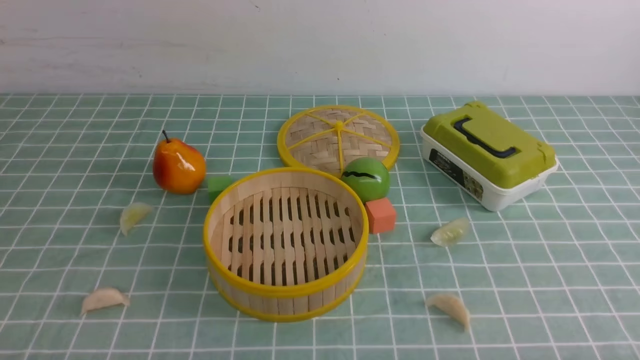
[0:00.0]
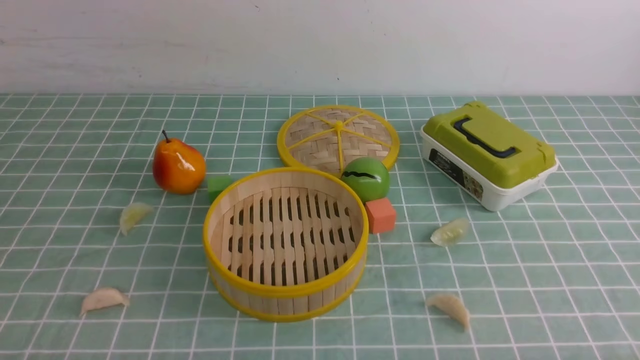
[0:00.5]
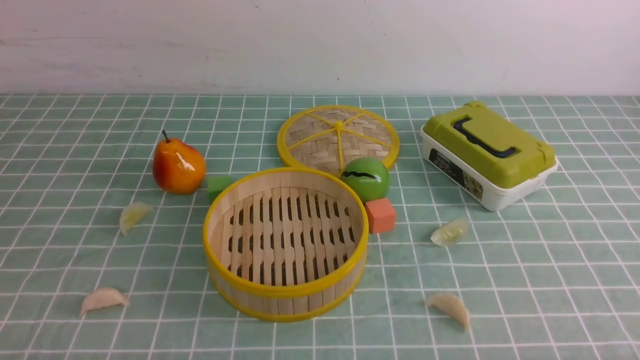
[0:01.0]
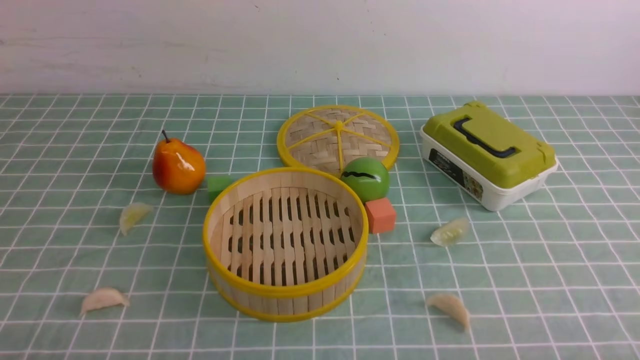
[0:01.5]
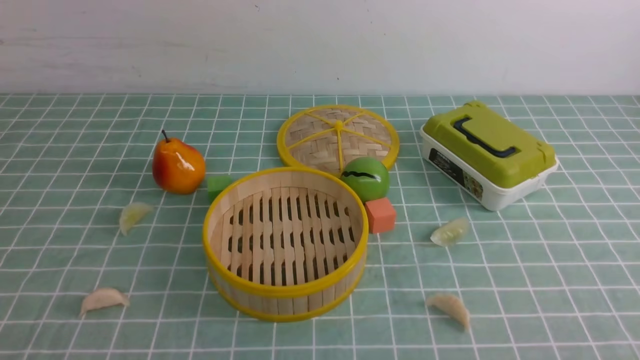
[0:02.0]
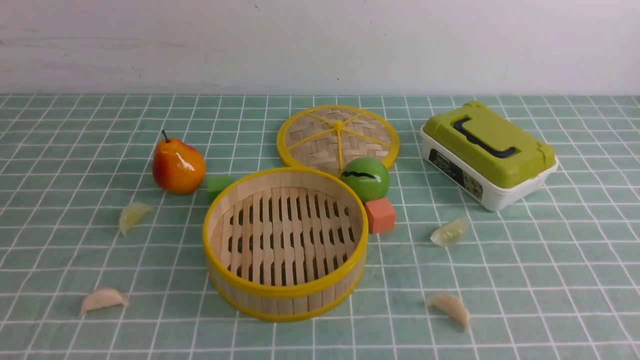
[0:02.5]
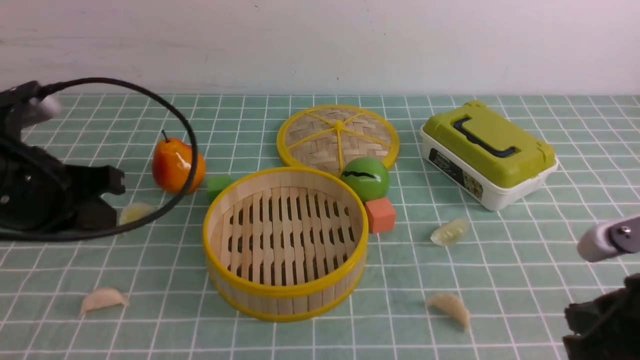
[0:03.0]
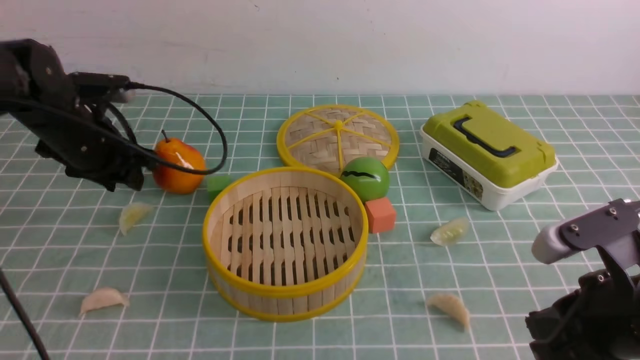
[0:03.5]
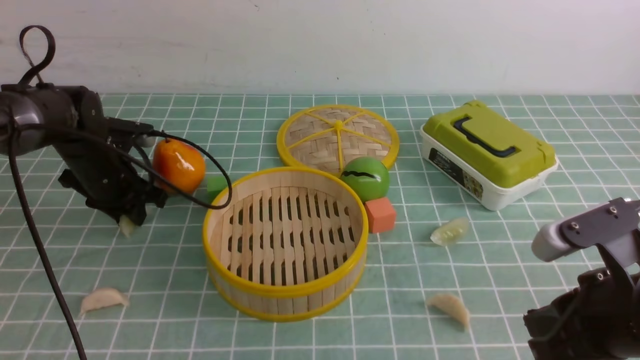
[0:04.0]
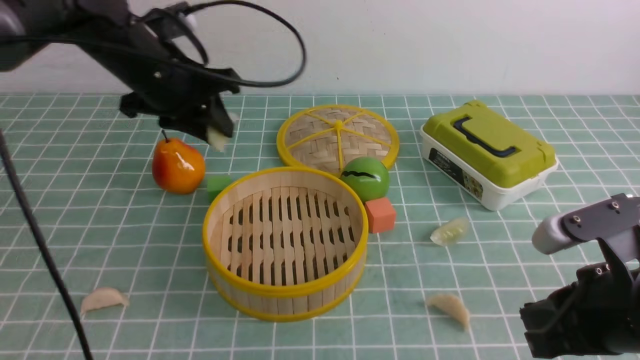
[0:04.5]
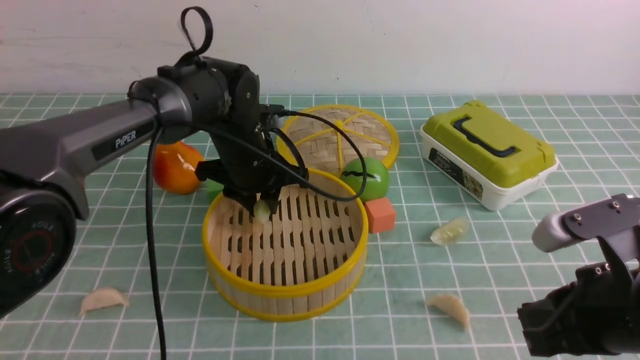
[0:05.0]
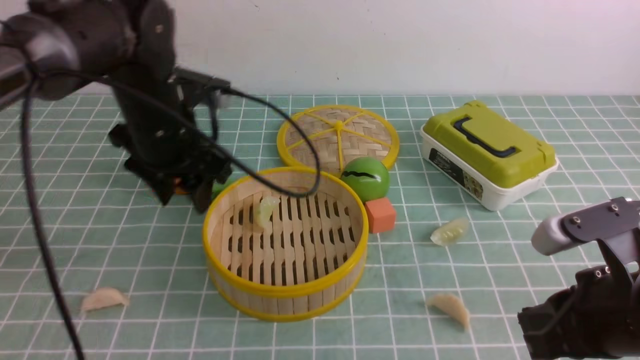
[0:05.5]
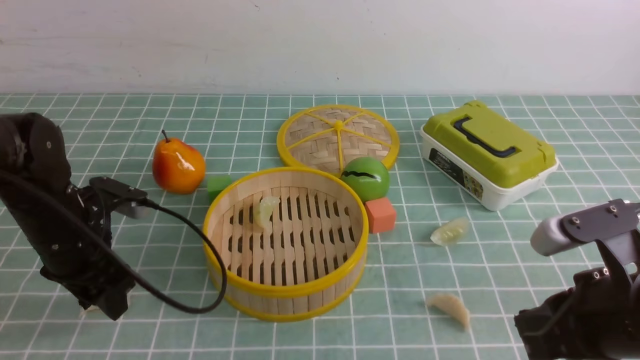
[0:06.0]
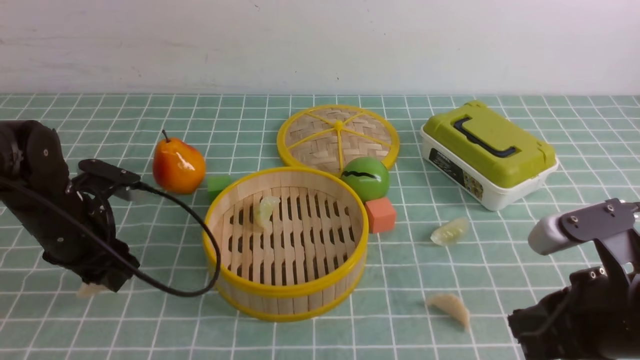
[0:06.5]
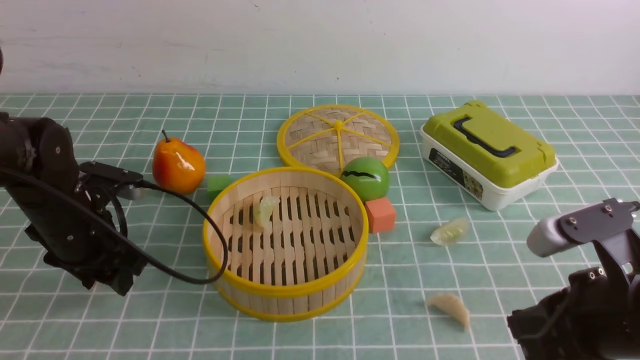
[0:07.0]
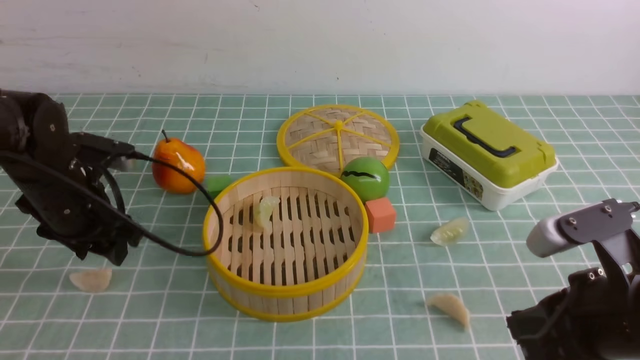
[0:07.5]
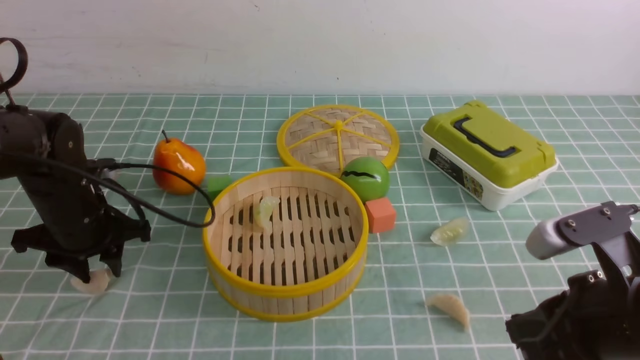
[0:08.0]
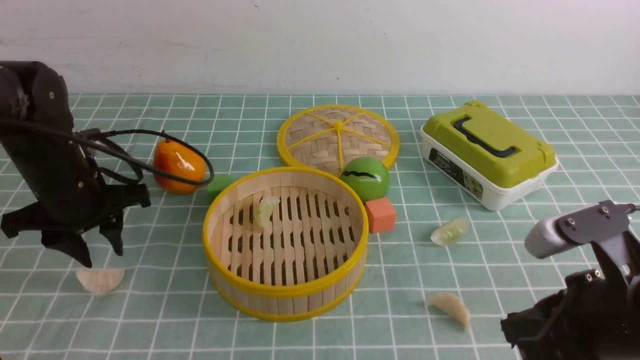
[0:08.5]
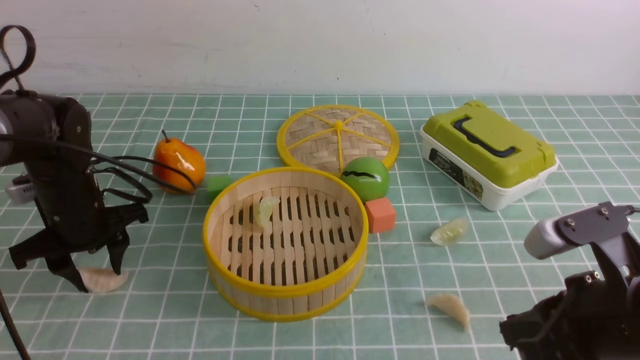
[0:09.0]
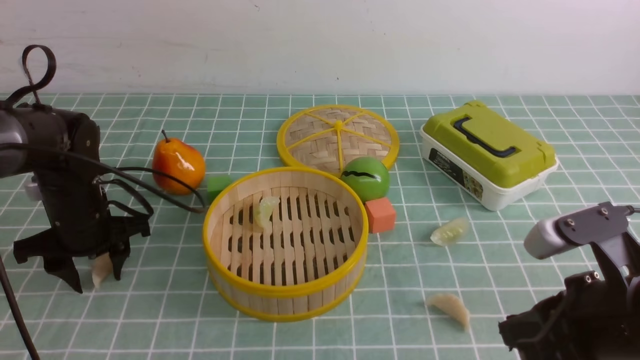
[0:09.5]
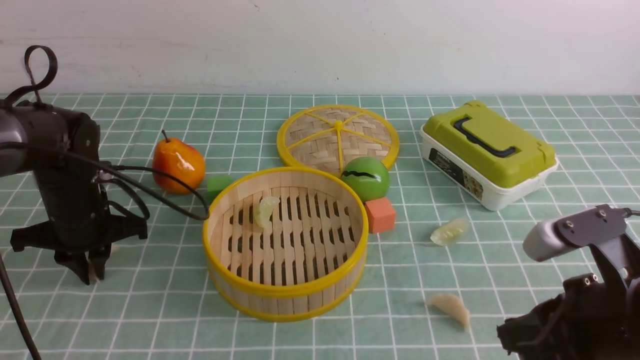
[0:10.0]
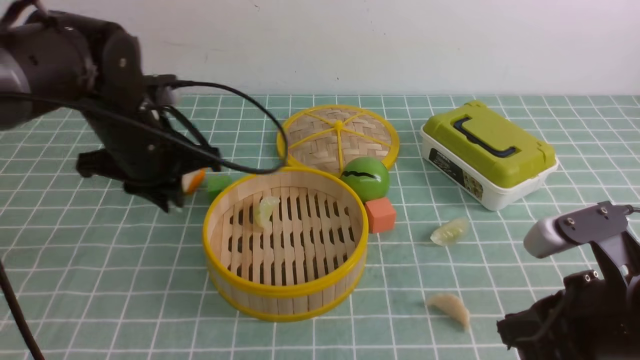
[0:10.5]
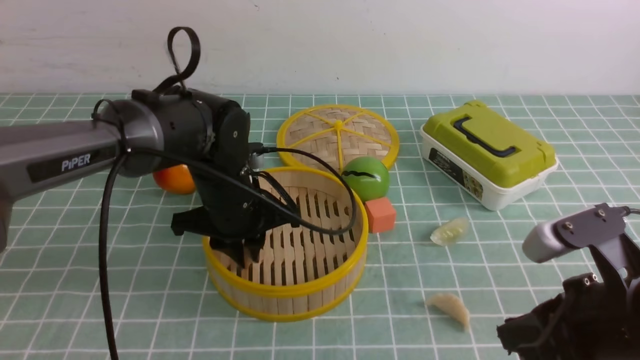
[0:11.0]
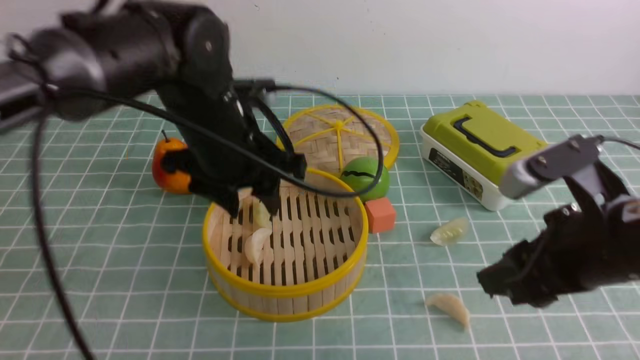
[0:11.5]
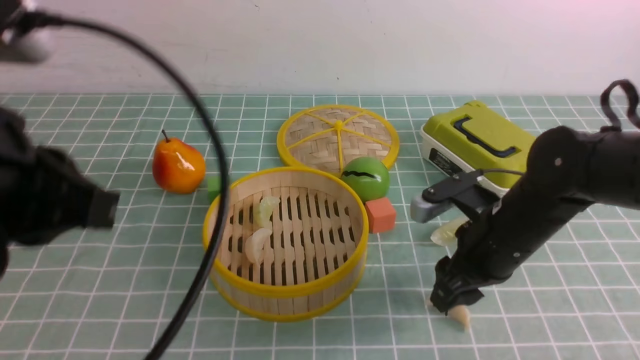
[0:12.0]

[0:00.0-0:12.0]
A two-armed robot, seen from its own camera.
Task of the whole recording: put the dumplings into the steamer on the table with the blue tablecloth.
Step, 0.0 to 4.0 s: use the left arm to grab a dumpling.
Step, 4.5 to 5.5 s: use the left arm to put the dumpling into the steamer.
Step, 6.0 to 10.5 s: use the left arm to grab a dumpling.
Step, 11.0 to 11.5 s: use the left arm to put the dumpling into the steamer.
2.0 to 4.0 s: The right gripper goes about 15 cm forward and to the left. The left gripper heads forward, covering about 40 cm, and opens up.
4.0 to 6.0 s: The left gripper goes roughly 10 cm backward, travels to the right and back again, about 20 cm each way, and opens its fingers.
8.0 to 10.0 s: The left gripper closes its fingers.
10.0 to 12.0 s: The right gripper travels forward by about 15 cm, and opens its fingers, while the left gripper heads backward and upward, covering approximately 30 cm, and opens, then closes again.

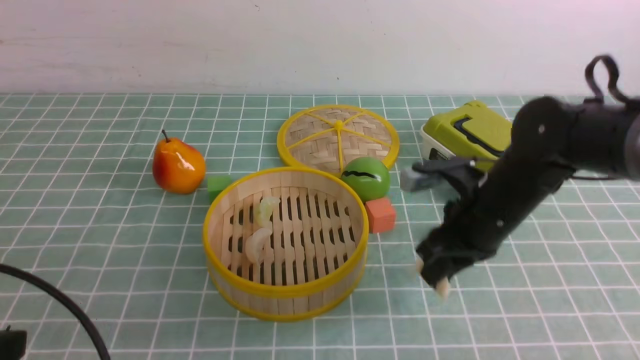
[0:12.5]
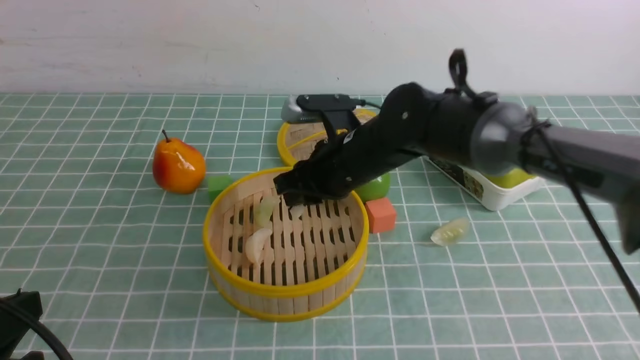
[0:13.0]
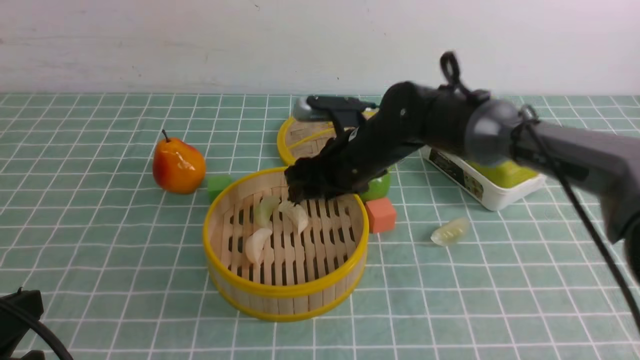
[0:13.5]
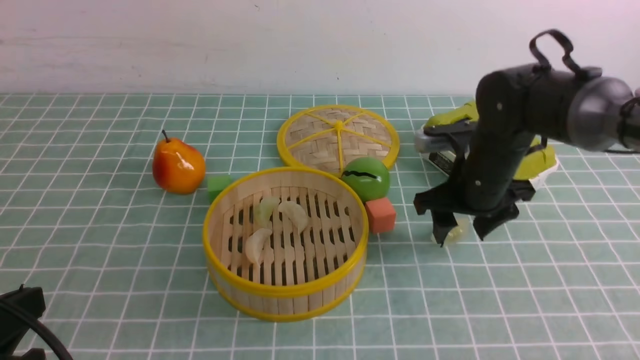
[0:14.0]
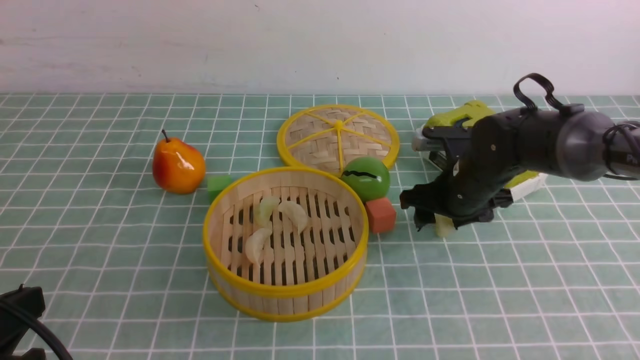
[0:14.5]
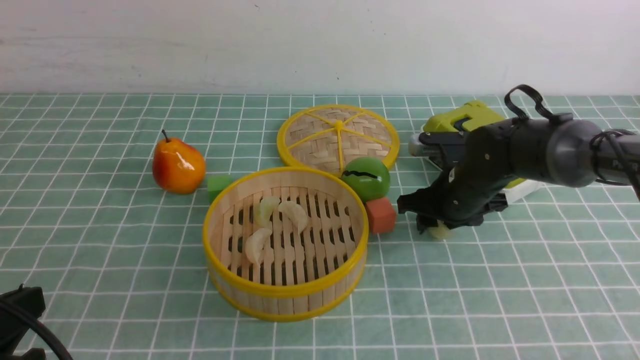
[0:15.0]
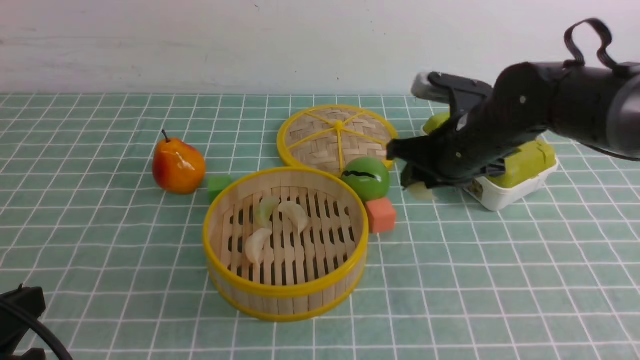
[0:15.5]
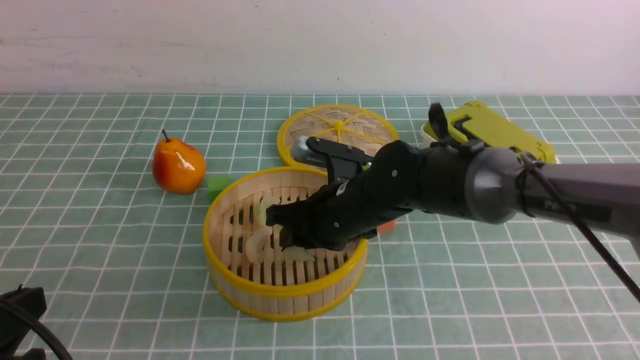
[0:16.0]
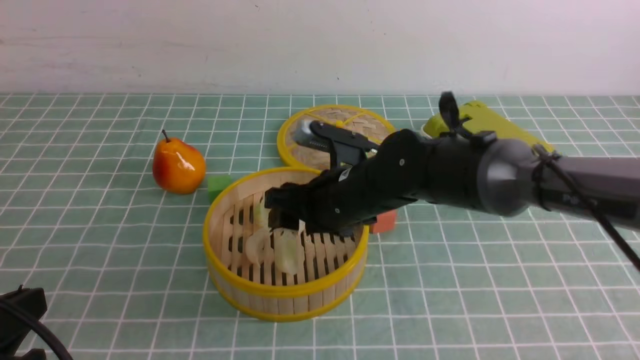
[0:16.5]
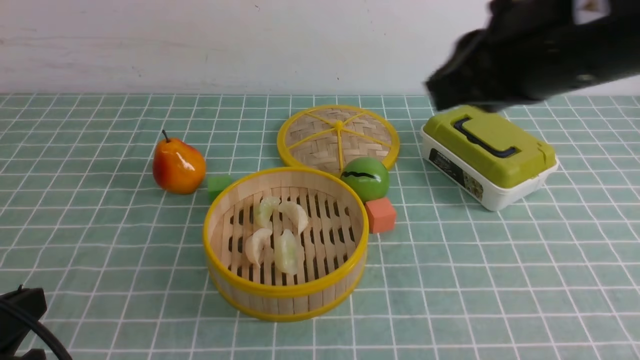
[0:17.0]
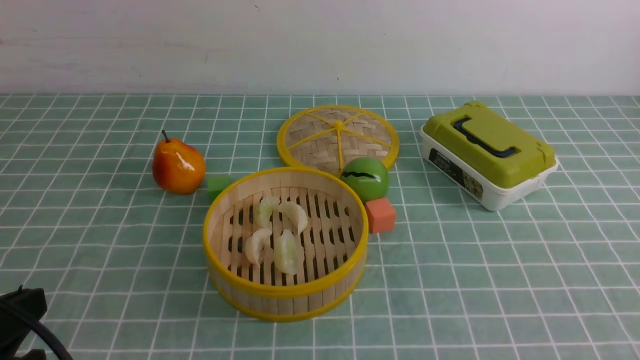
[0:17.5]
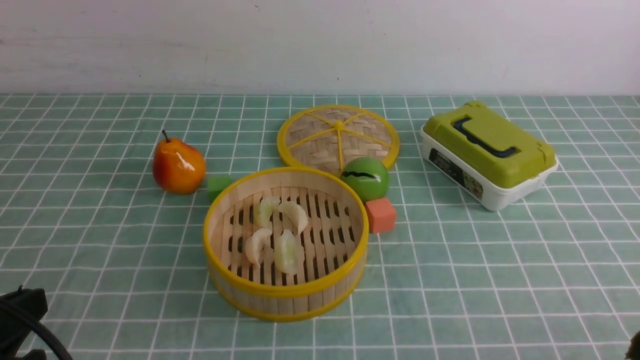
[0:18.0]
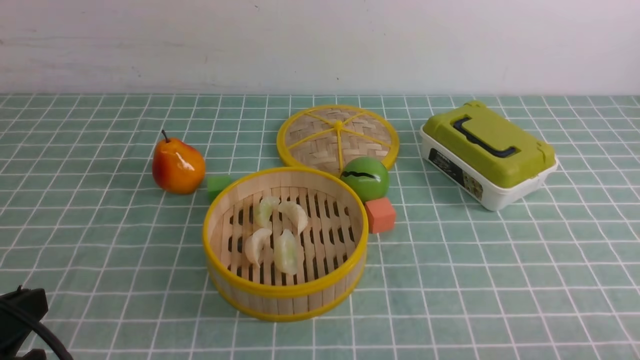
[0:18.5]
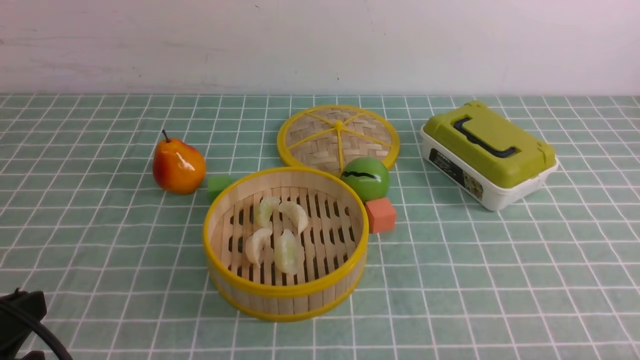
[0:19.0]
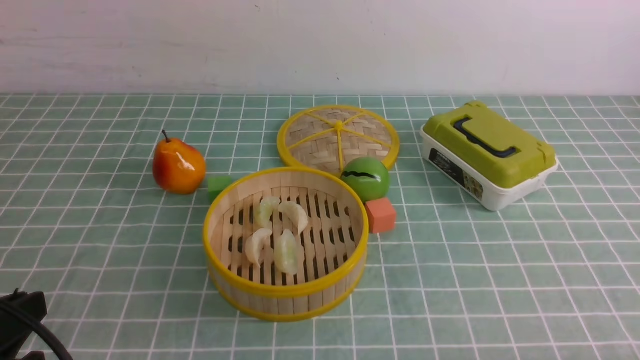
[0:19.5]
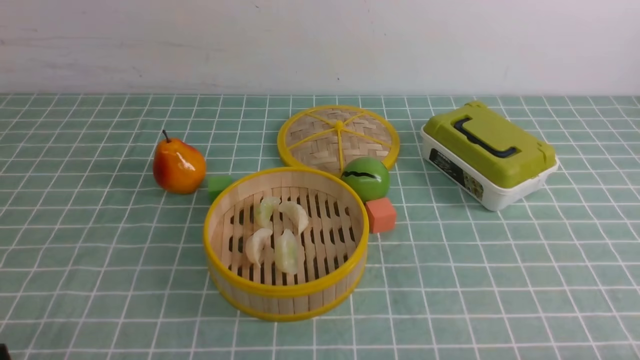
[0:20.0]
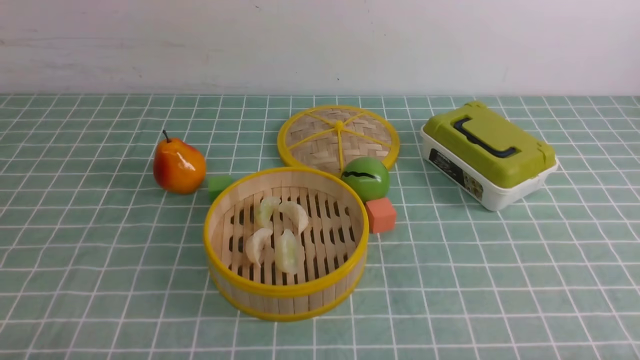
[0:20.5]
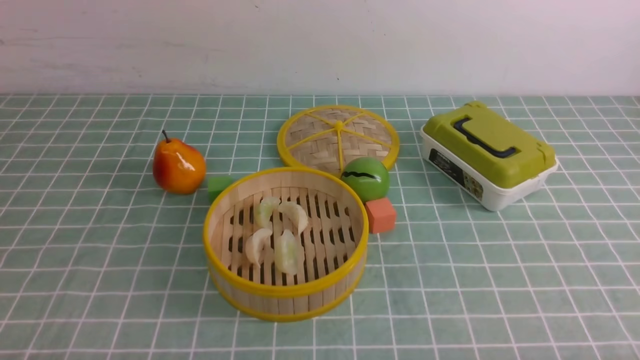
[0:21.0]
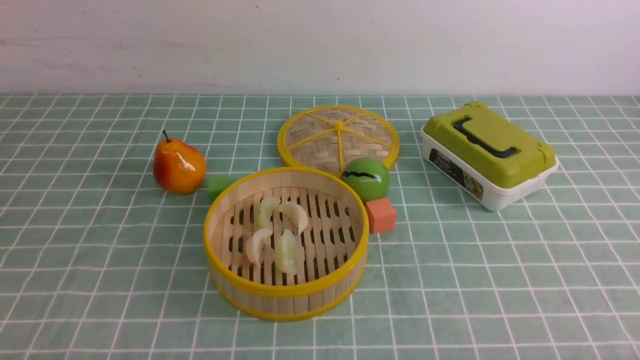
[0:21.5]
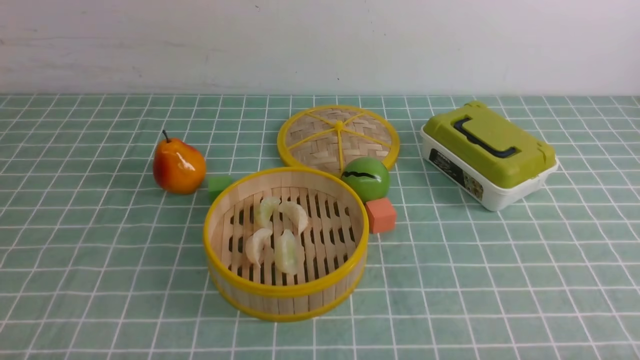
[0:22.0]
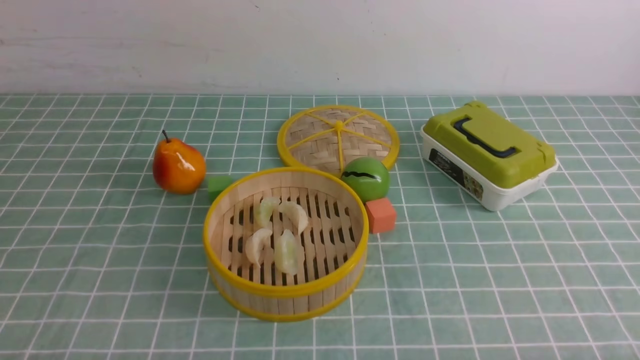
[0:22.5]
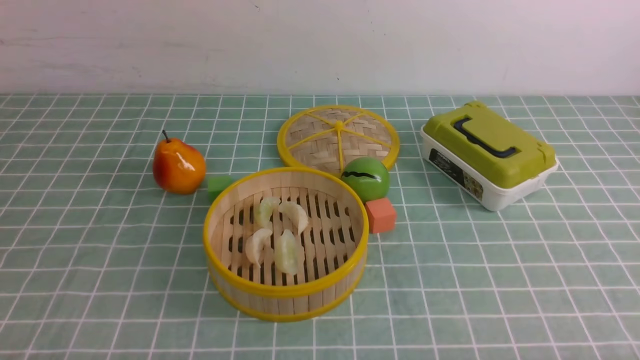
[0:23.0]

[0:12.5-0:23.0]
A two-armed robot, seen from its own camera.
Task of the whole recording: put the dumplings into the steamer on the table with the blue tablecloth.
Step, 13.0 to 13.5 s: use the right arm to put the dumpling into the steamer.
Step, 14.0 to 15.0 s: use the right arm to grab a dumpling.
Step, 15.5 to 16.5 s: use the right arm to put the dumpling into the steamer.
12.5 to 14.5 s: The right gripper moves forward, roughly 5 cm, reaches approximately 10 cm to the left, then returns, and opens its fingers.
14.5 to 16.5 s: The right gripper shifts about 15 cm to the left, upward and backward, and closes and opens again.
16.5 to 19.0 s: The right gripper travels backward and to the right by roughly 40 cm, and closes up.
19.0 to 21.0 s: The left gripper heads downward, covering some 10 cm.
21.0 to 23.0 s: Both grippers stay about where they are.
